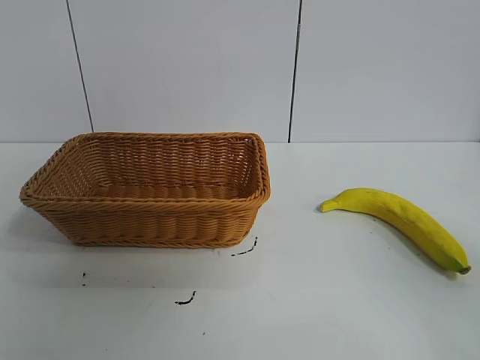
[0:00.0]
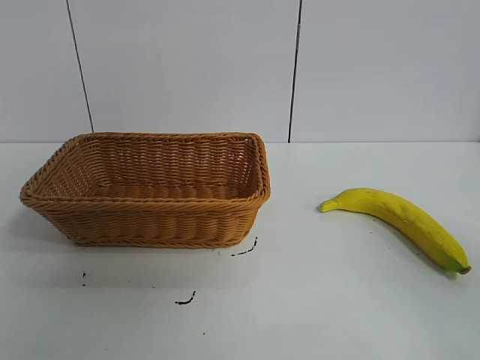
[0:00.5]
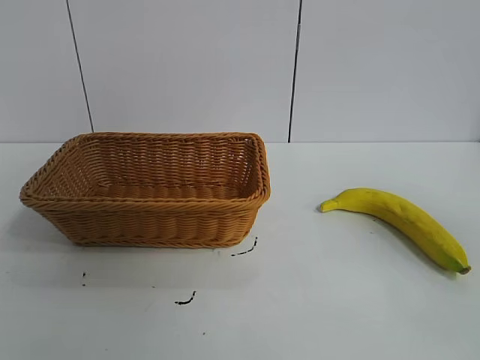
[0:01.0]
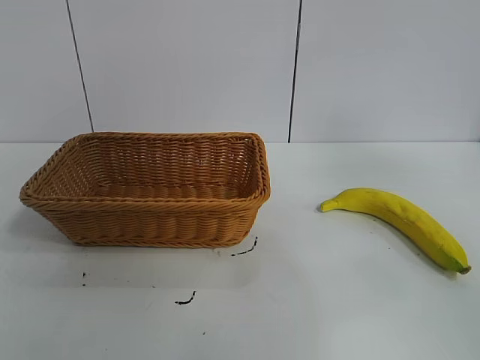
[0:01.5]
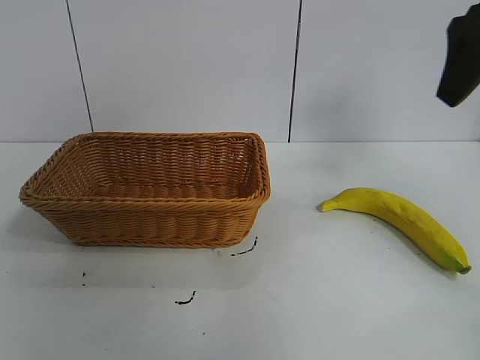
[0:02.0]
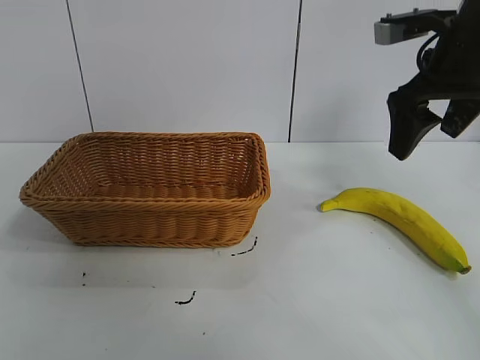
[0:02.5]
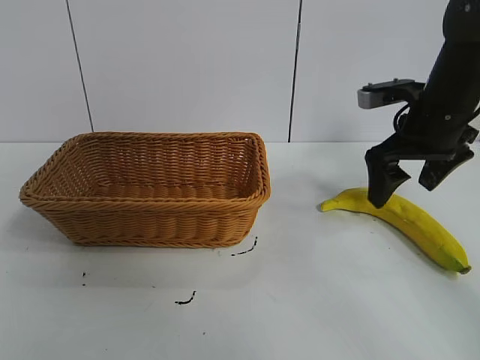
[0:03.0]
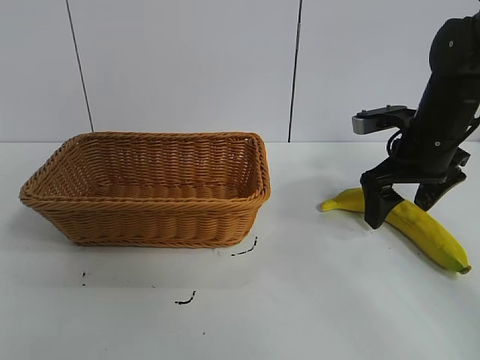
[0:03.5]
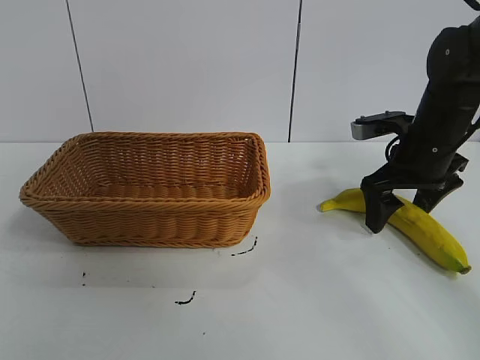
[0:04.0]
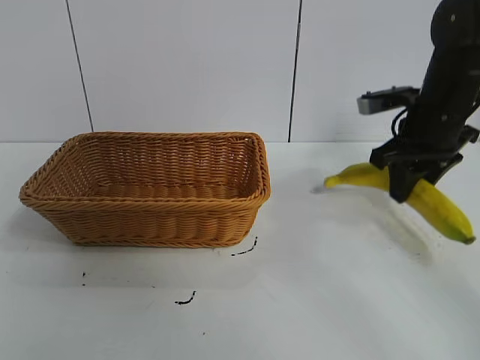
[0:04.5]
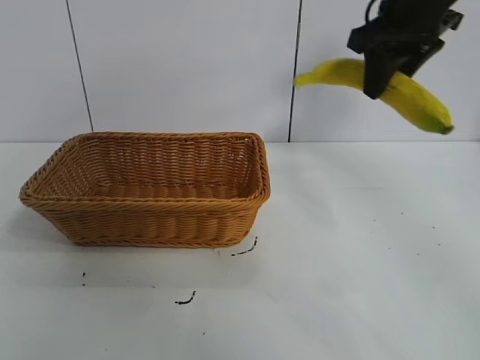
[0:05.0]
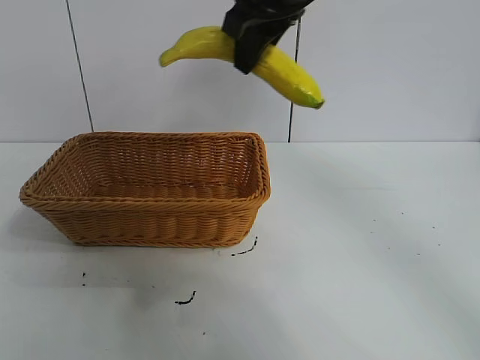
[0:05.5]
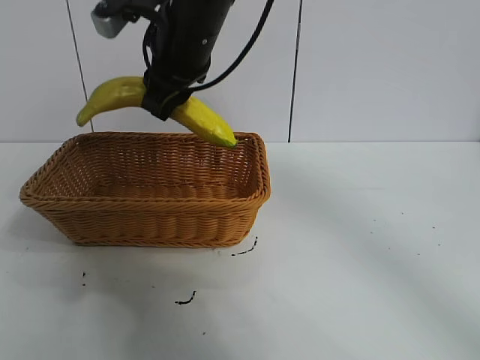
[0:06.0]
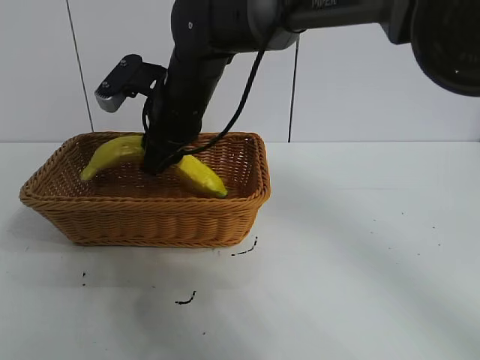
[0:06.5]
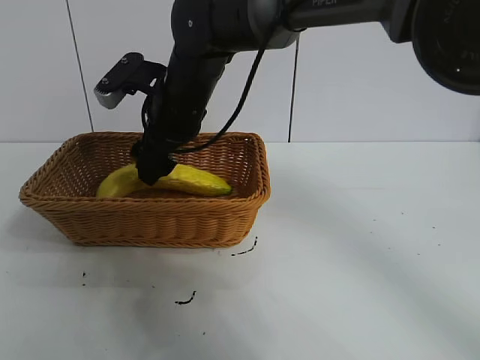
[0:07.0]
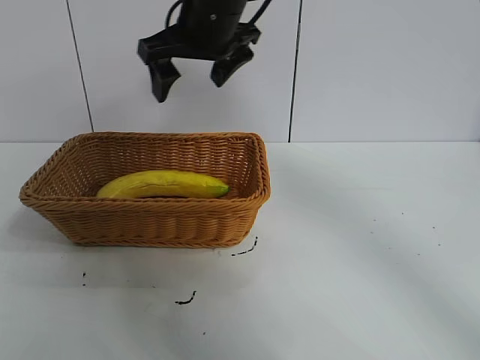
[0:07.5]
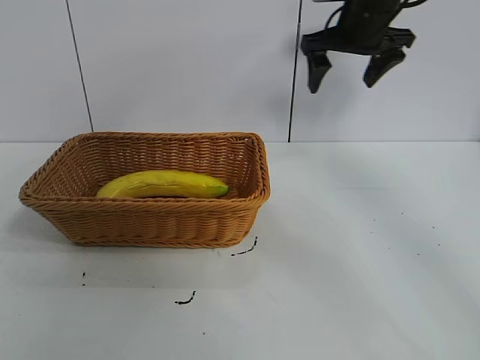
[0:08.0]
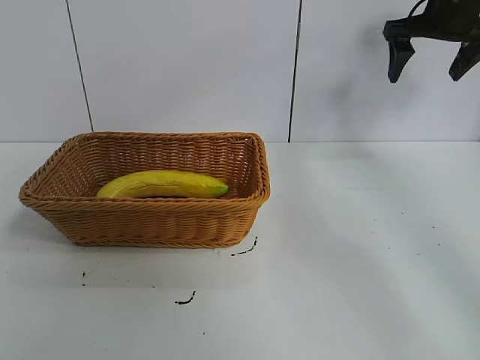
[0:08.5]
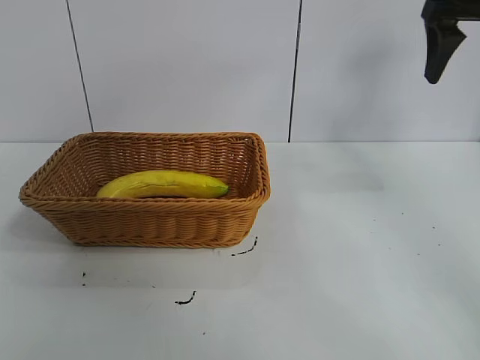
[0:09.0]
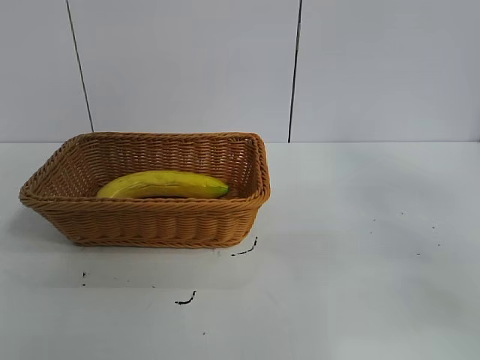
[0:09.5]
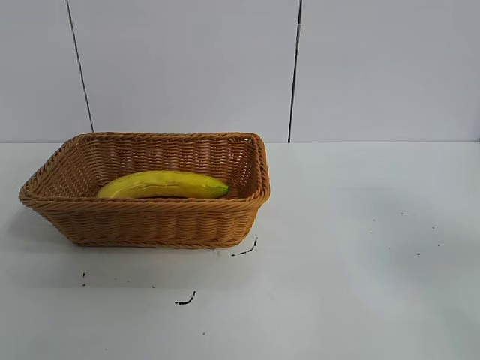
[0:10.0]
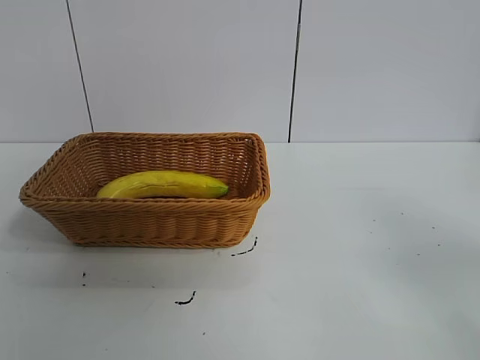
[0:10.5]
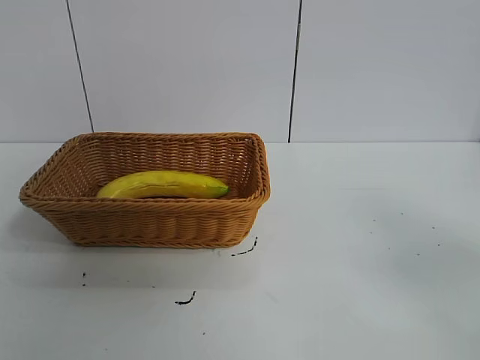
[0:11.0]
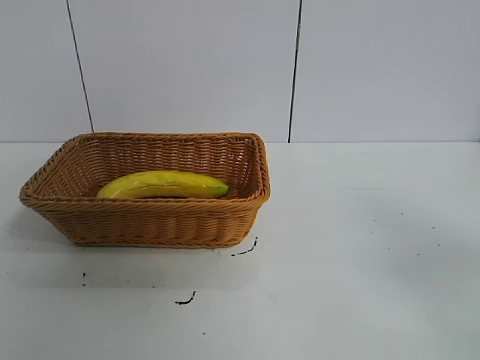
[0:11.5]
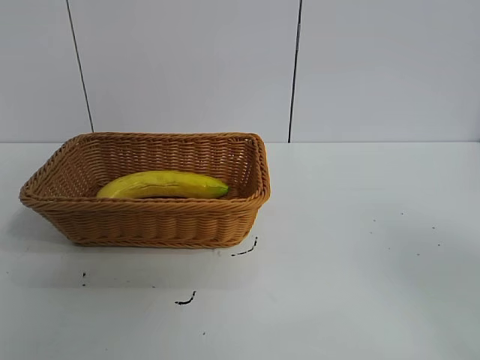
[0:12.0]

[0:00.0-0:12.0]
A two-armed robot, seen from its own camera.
Task of the whole recording: pick up the banana and put it into the basket.
Step, 0:01.0 to 0:04.0: Grasp the banana with right gripper.
Step, 0:04.5 to 0:07.0: Place the banana in the basket with right gripper.

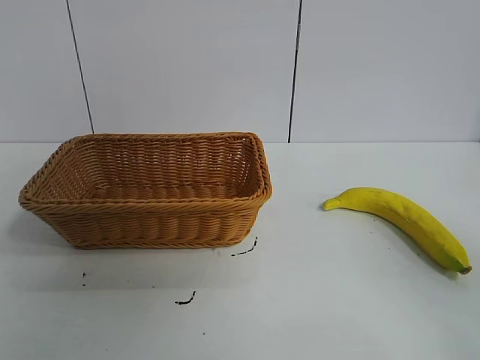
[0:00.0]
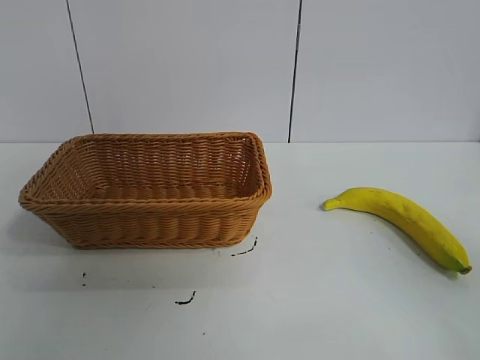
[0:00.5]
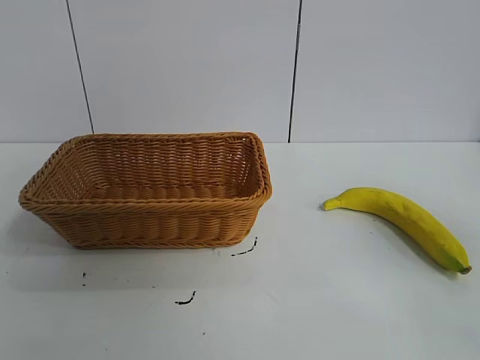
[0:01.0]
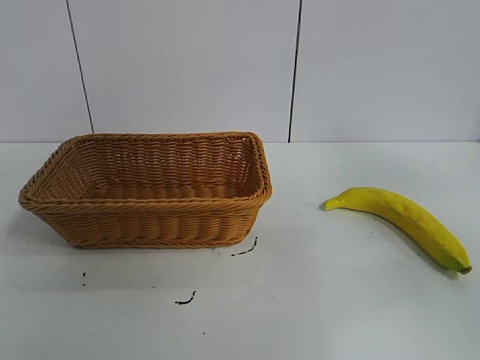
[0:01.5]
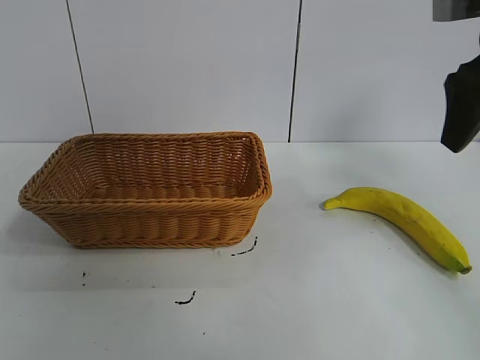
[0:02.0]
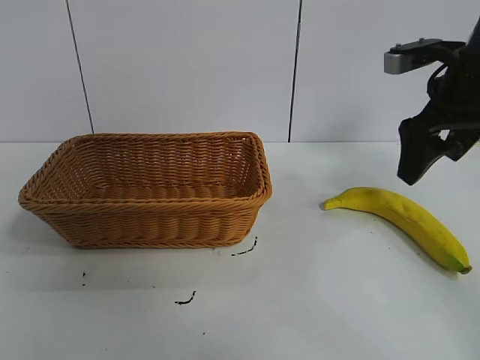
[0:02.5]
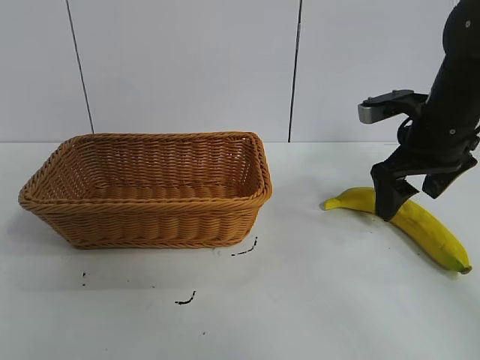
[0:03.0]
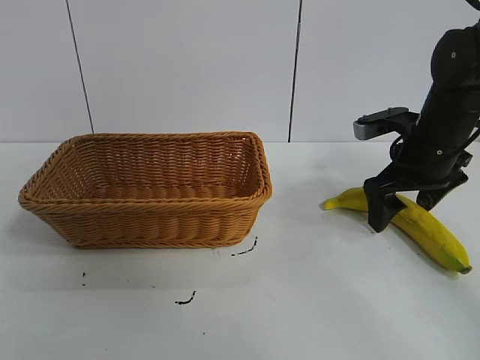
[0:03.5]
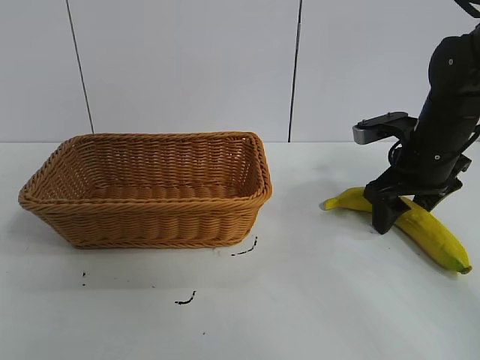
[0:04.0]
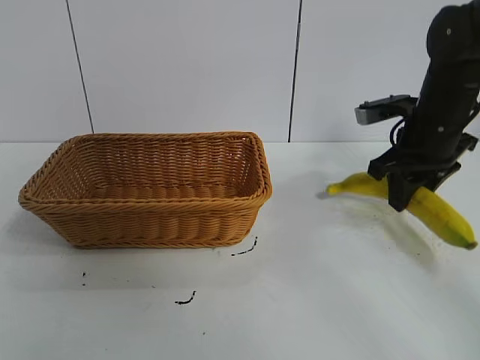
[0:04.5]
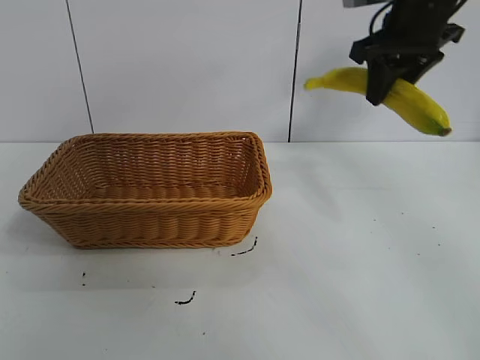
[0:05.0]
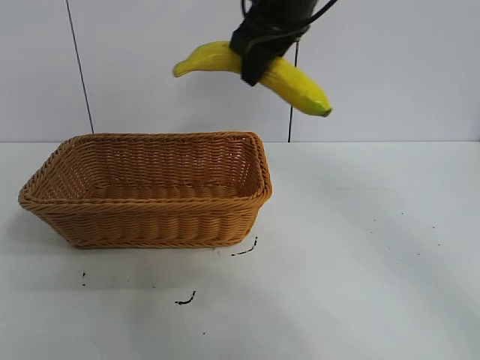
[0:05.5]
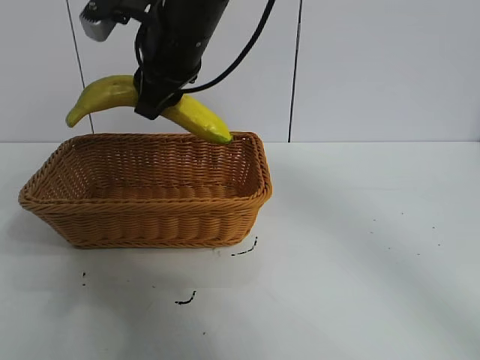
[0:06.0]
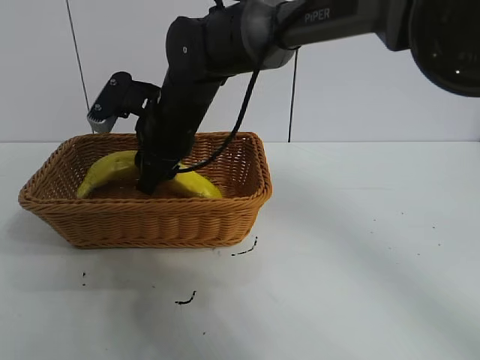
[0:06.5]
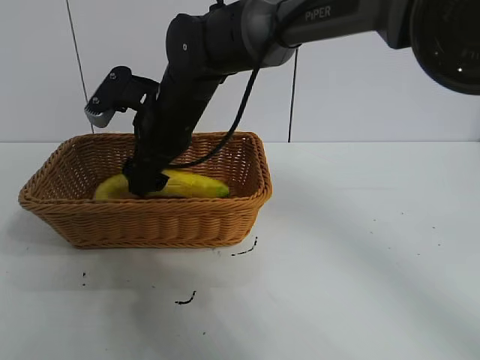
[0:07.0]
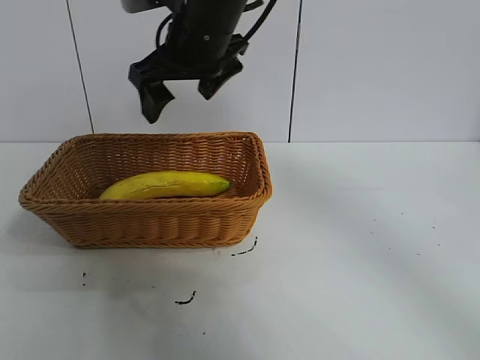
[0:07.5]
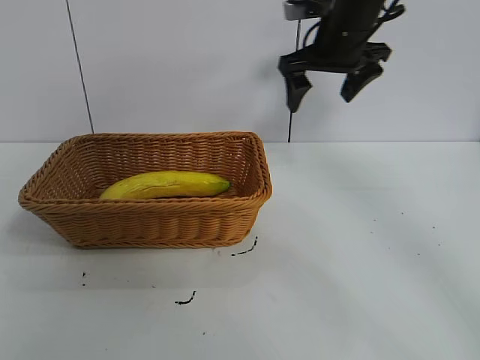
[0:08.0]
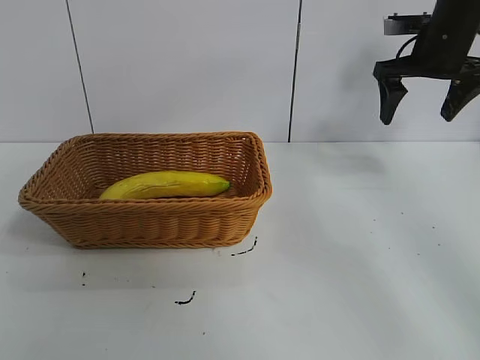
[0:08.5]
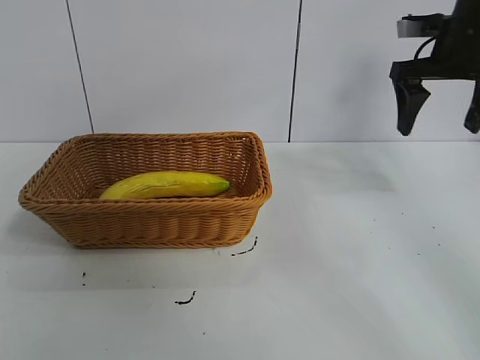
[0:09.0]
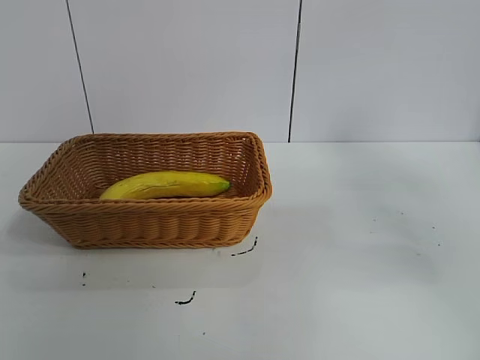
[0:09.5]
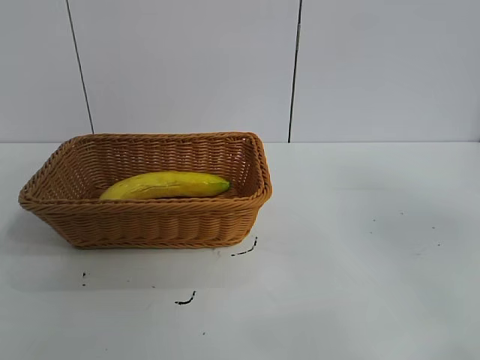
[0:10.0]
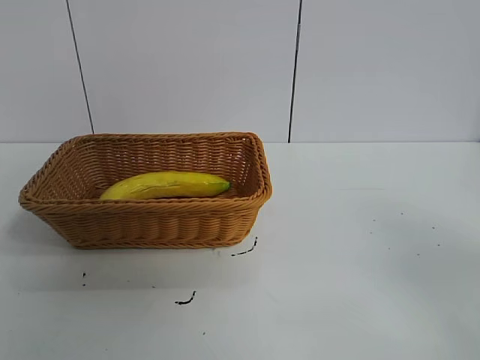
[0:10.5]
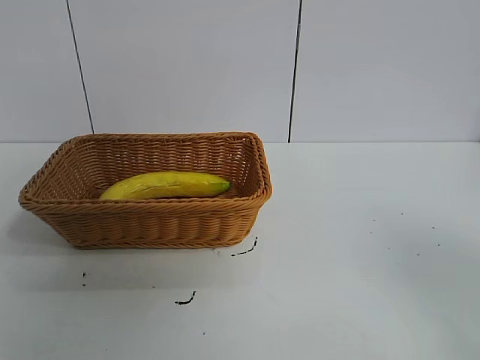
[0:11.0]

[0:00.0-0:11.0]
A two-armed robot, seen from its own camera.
Task of the whole recording: pick up the banana and put it into the basket.
Step, 0:01.0 to 0:04.0: Grasp the banana with right gripper.
Step, 0:04.5 to 0:07.0: Place the banana in the basket with right gripper.
